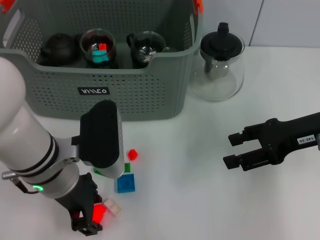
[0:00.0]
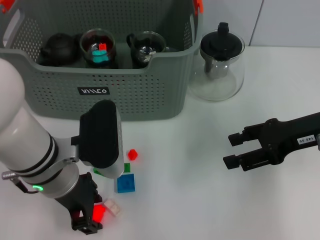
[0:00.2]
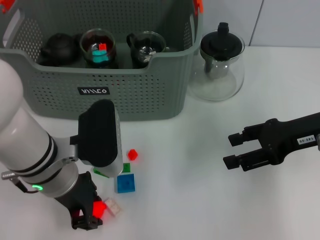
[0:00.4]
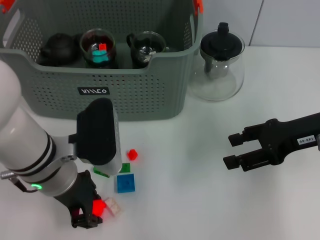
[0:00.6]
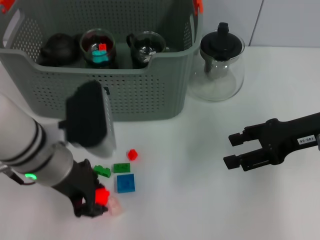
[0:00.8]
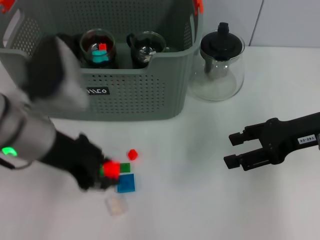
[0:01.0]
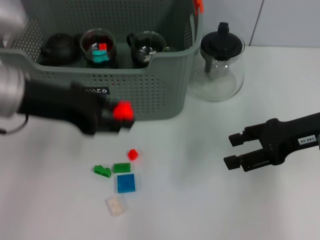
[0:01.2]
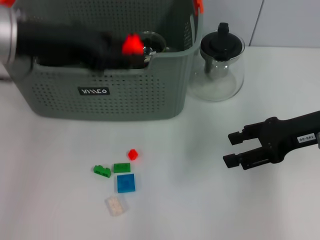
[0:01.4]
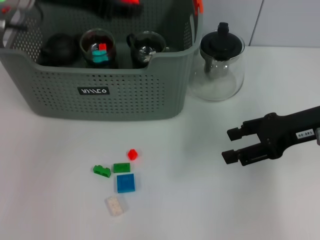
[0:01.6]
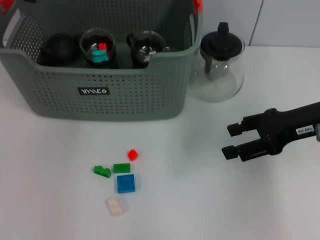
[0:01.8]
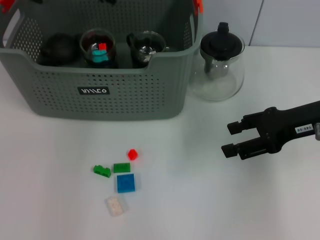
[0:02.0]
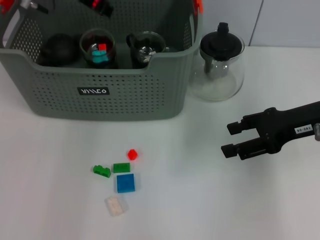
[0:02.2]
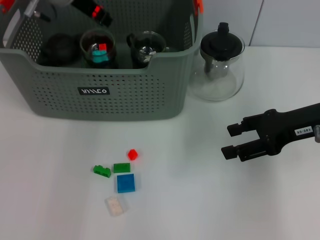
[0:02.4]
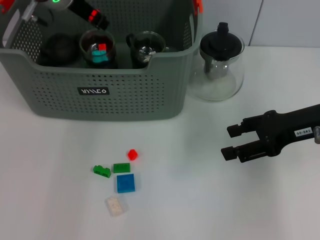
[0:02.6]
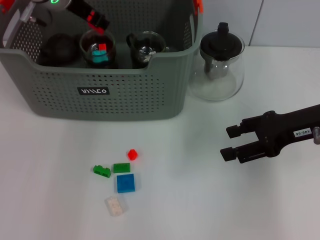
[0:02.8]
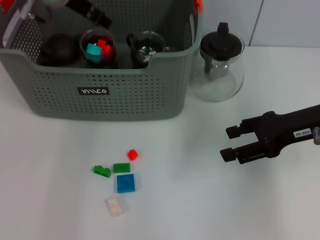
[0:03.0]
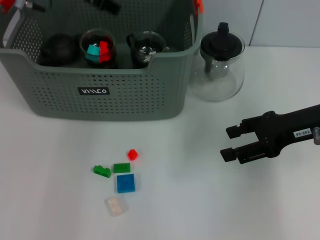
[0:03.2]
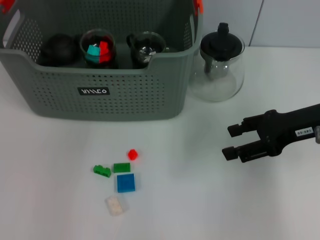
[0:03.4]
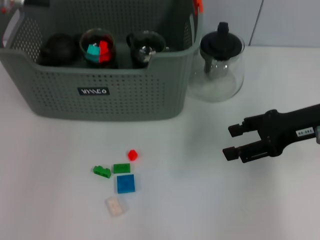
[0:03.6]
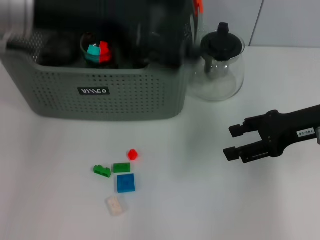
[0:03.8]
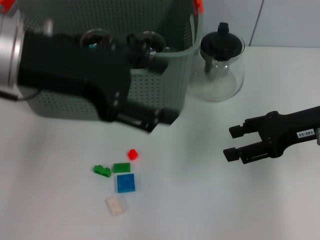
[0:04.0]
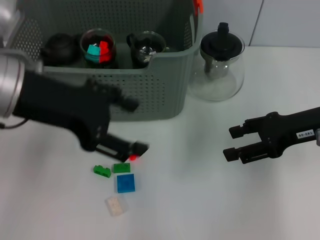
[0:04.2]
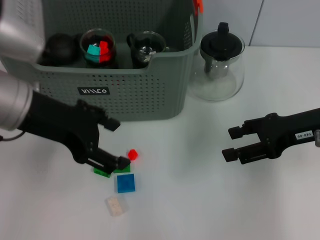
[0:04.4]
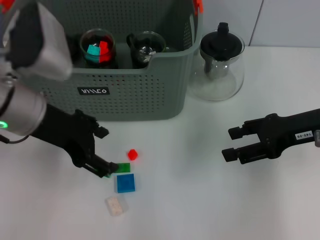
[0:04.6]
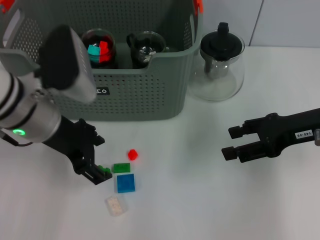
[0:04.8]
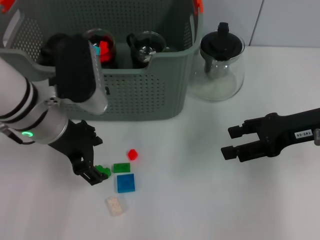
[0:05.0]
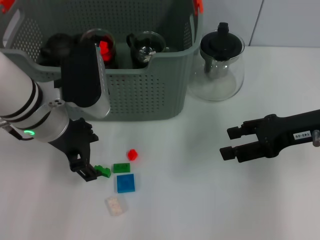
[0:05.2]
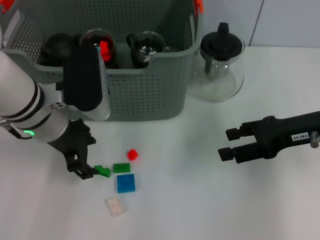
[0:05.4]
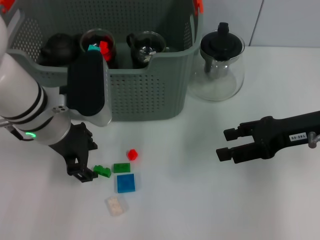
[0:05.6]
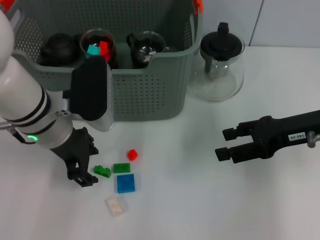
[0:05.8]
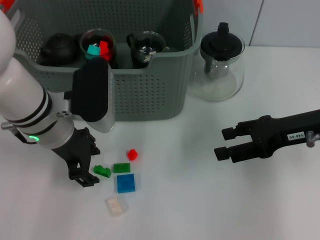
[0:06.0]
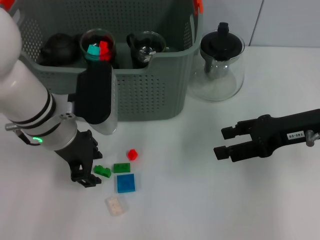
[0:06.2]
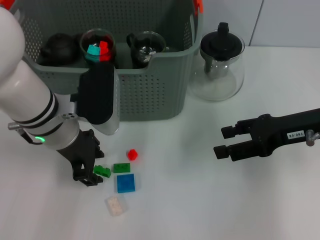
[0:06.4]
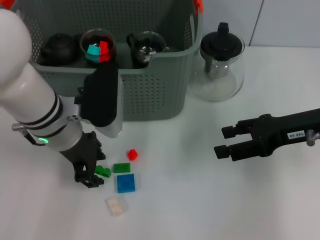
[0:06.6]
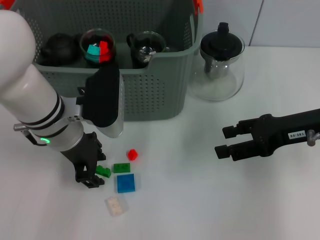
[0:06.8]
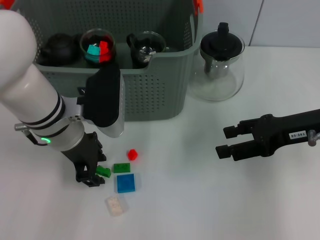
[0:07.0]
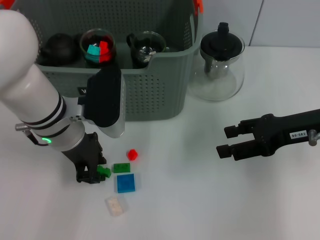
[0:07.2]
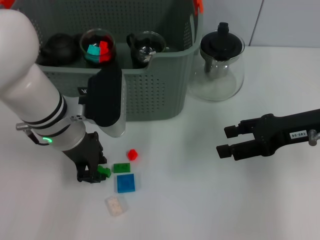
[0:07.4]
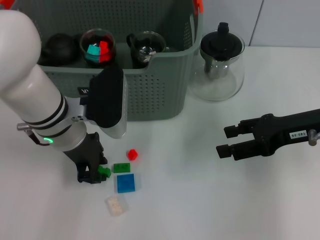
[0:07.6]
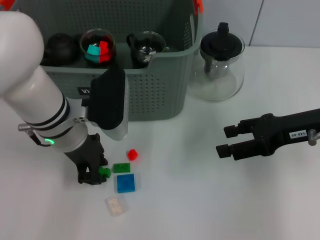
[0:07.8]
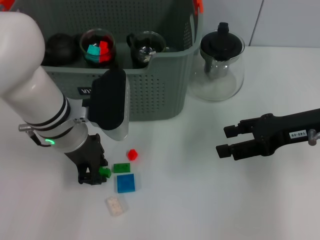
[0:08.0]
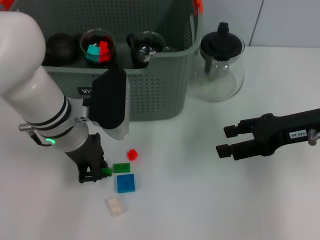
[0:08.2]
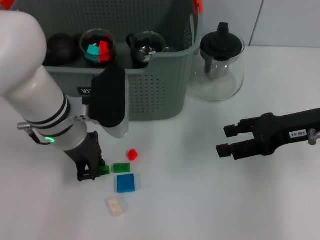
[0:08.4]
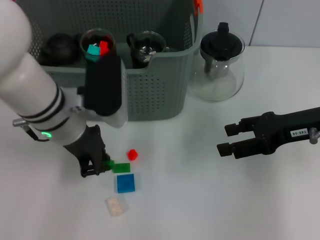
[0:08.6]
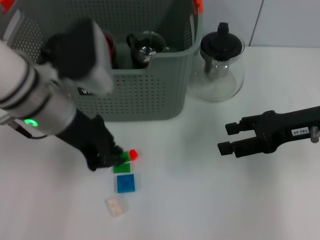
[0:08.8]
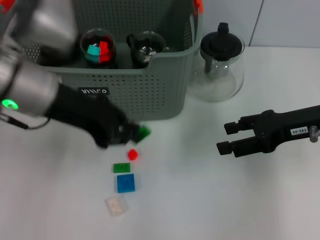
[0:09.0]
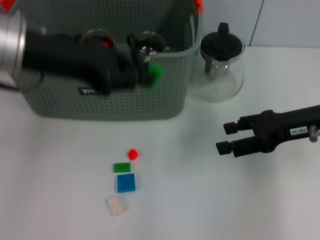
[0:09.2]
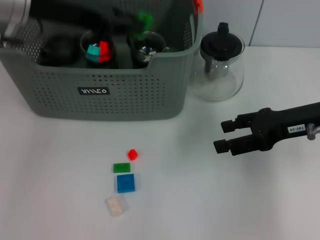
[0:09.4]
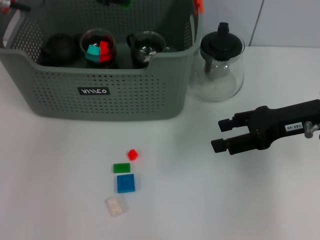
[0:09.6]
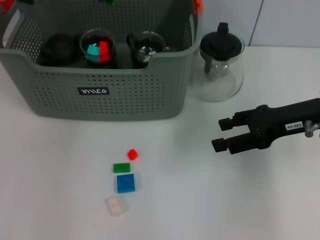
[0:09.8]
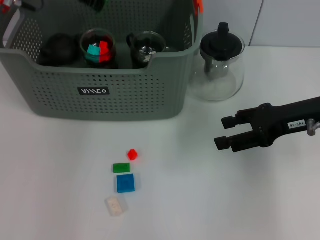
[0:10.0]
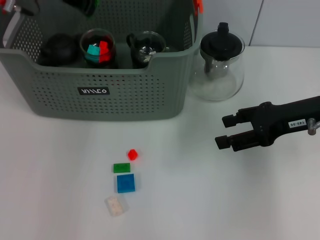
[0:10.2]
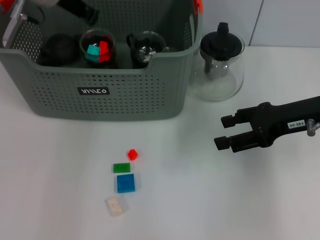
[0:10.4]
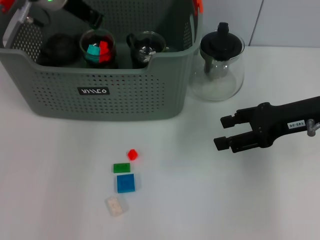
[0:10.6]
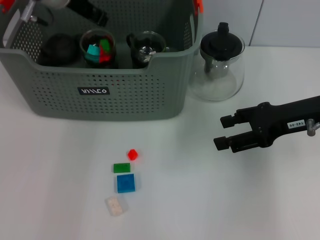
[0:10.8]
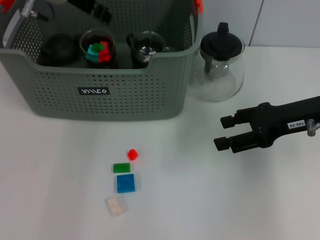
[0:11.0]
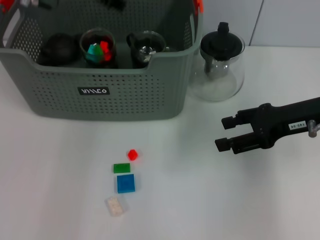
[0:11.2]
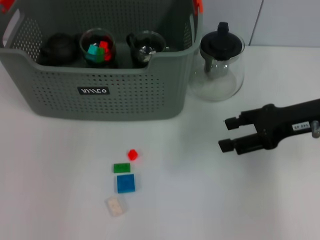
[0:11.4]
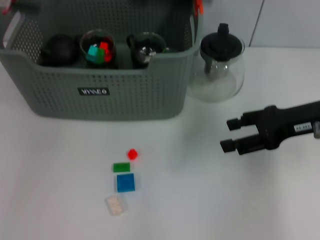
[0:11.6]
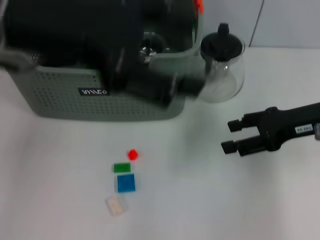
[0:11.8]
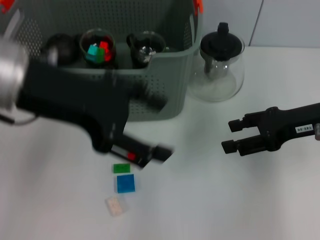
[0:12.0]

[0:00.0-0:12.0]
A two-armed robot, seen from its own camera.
Task of the whole recording: pick up the teacup on the table and place it into the storage bin, pick up the block on the table and place it into the storage bin.
Step, 0:00.8 to 0:03.6: Place the orange block in the storage box with left gripper.
Step, 0:03.8 to 0:08.2: Grasp the green block with left gripper.
Step, 0:08.4 to 0:10.8: Place the green block in the storage box with left gripper.
0:00.0 to 0:01.6: The left gripper travels upward and forward by some 20 cm.
0:01.6 to 0:03.0: The left gripper shifts approximately 10 cm forward and downward.
0:03.0 to 0:04.4: The left gripper heads backward, covering roughly 15 cm.
0:04.4 to 0:06.0: The left gripper travels downward by approximately 10 cm.
0:06.0 to 0:07.6: The left gripper closes its fingers.
0:07.6 to 0:09.0: The left gripper shifts some 10 cm upward.
0:09.0 to 0:10.4: The left gripper moves forward, approximately 15 cm.
0:10.4 to 0:12.0: The left gripper shifts some 20 cm backward, and opens up.

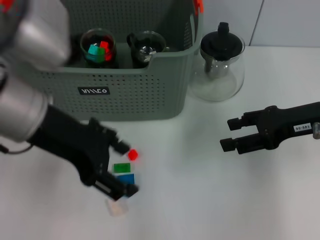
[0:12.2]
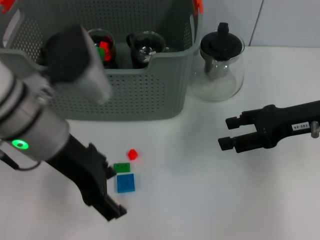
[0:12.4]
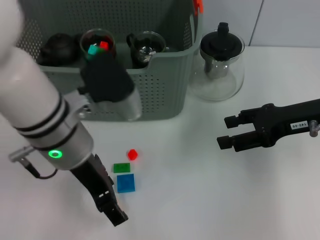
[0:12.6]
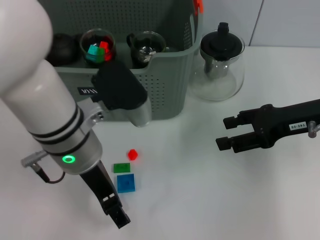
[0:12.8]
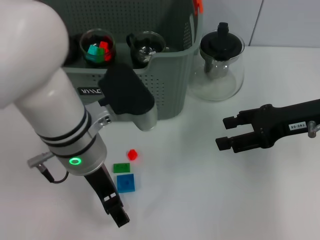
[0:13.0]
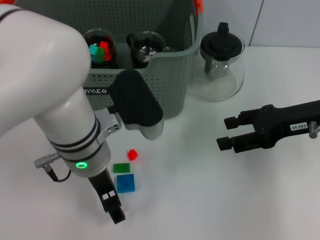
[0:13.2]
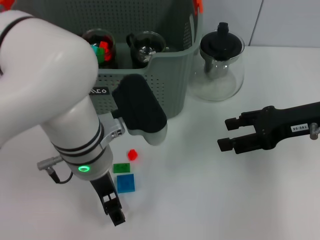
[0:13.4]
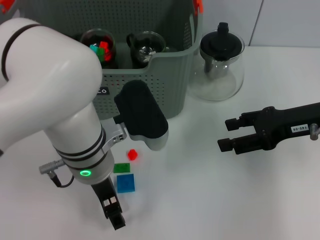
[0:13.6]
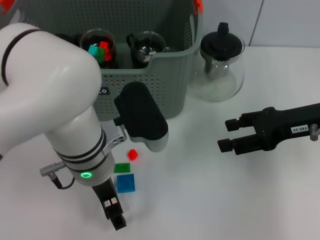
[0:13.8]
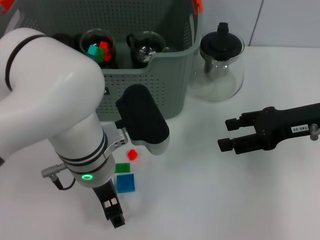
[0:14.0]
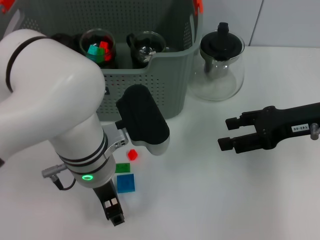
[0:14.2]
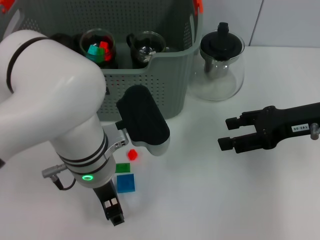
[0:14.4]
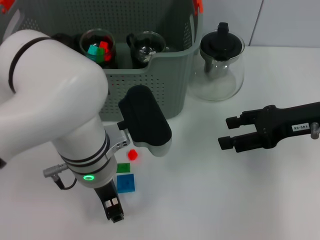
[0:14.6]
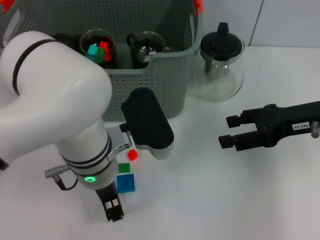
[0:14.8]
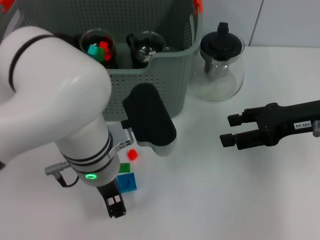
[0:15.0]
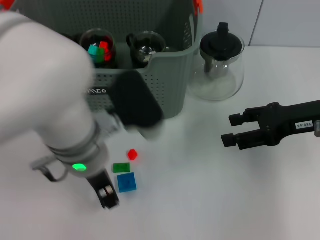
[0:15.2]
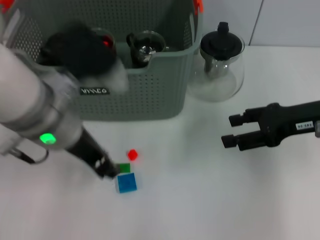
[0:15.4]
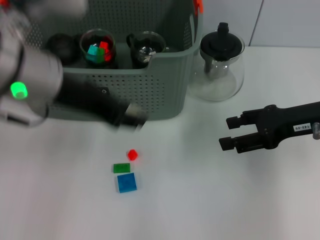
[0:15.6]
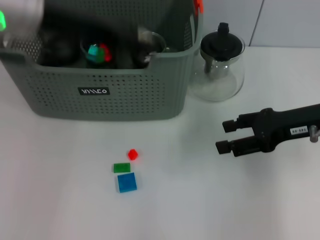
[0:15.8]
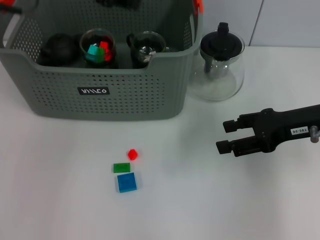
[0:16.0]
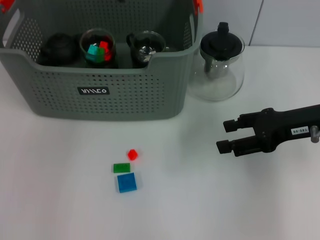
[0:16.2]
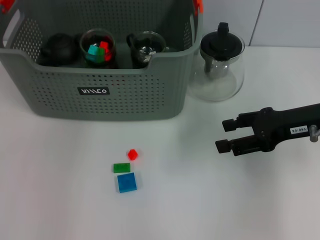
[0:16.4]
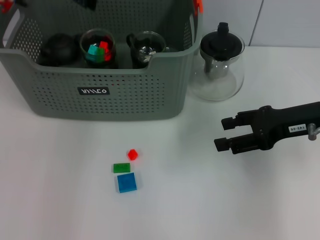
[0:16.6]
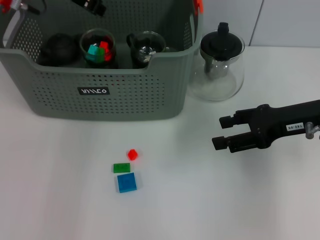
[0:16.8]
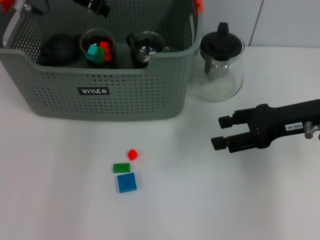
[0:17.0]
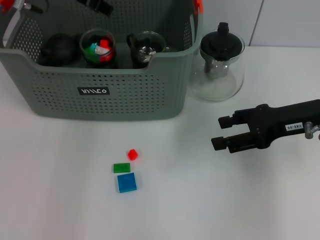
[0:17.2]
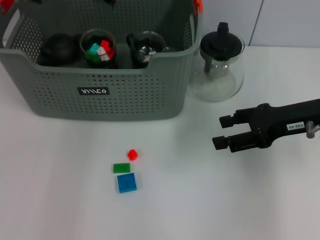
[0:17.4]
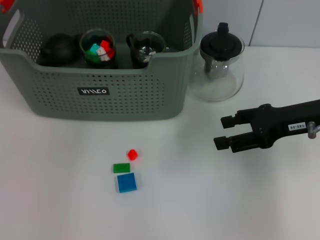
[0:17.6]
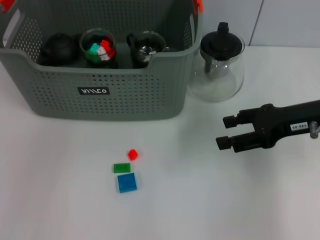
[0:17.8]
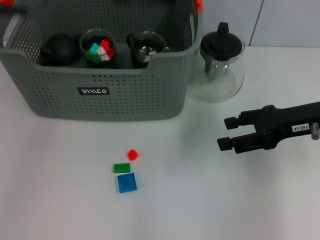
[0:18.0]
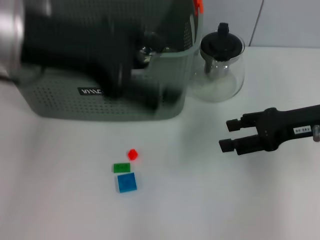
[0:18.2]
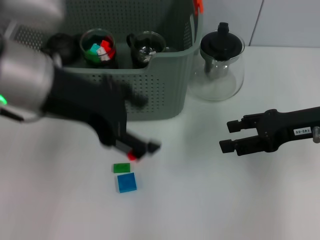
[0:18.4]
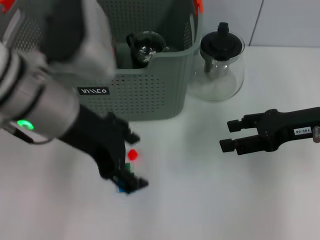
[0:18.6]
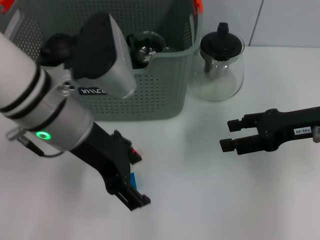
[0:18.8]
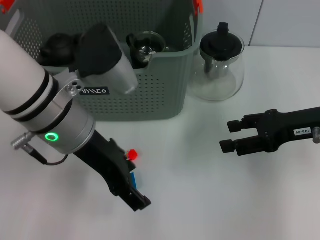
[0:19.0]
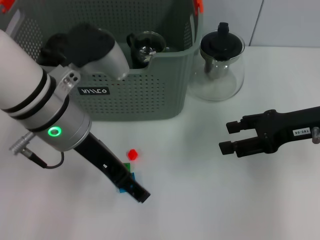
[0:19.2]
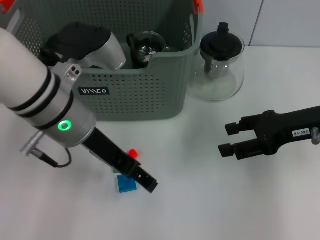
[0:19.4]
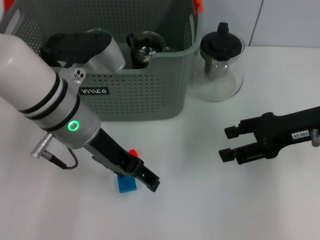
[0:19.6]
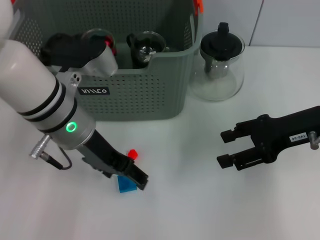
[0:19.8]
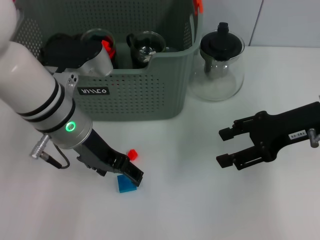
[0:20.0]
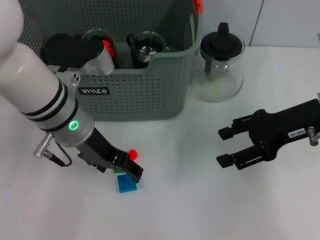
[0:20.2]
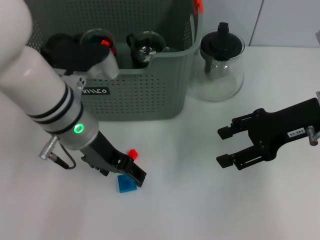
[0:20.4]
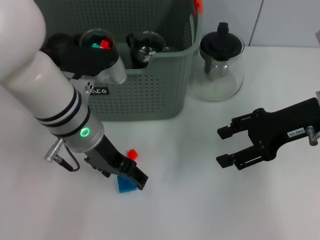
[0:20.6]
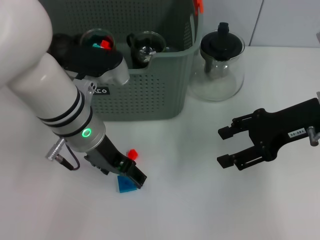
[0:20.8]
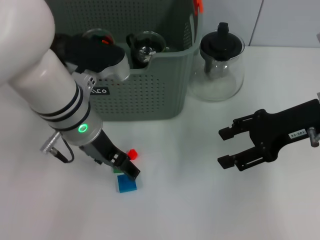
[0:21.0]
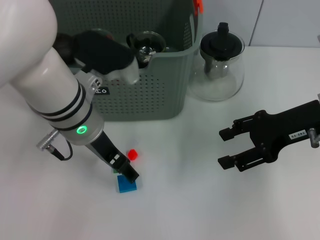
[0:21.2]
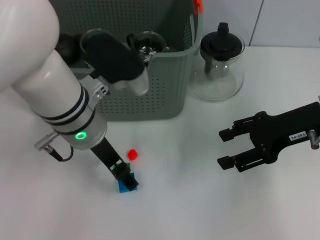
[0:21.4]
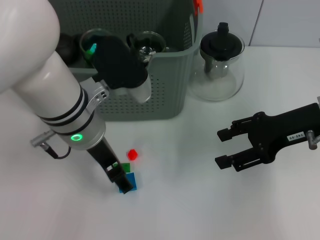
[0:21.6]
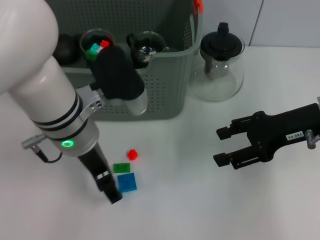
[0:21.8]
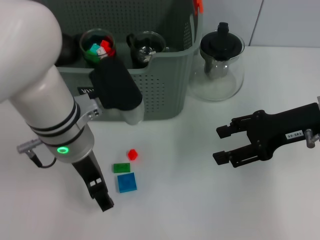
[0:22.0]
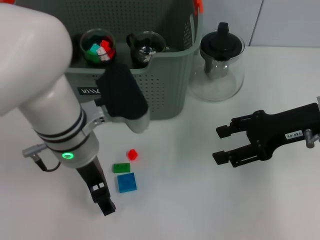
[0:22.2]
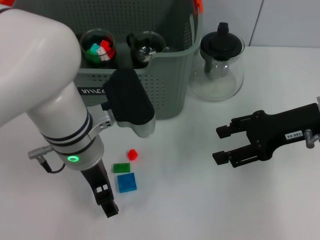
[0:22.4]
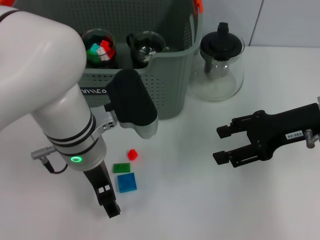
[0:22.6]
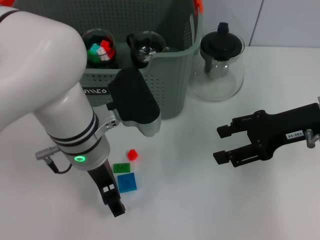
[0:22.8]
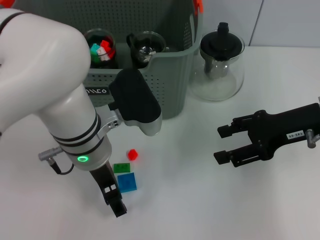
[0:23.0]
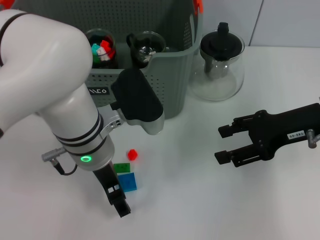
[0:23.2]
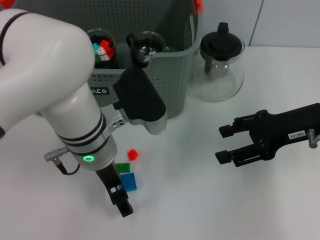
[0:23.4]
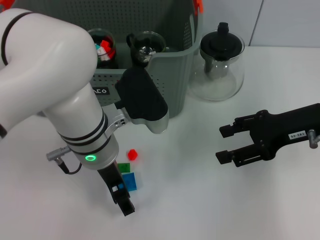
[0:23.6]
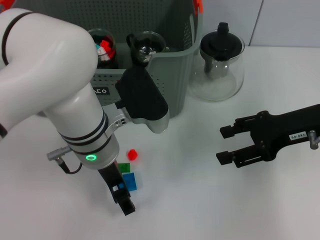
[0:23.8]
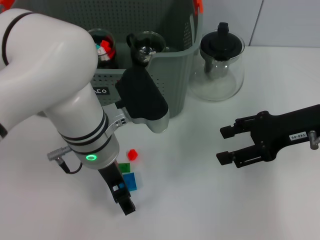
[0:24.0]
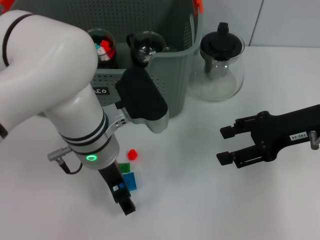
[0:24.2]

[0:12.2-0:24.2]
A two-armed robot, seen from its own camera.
Task of the whole recording: pick up the teacup on the table and place it into the storage bin, pick up the block on the table and place it into the storage bin.
Step, 0:12.2 to 0:15.0: Grasp the white block with left gripper.
Step, 0:15.2 to 0:17.4: Place the white block in the storage box with left gripper.
0:12.2 to 0:13.8: The left gripper heads downward and to the right, covering roughly 15 cm.
0:13.8 to 0:15.2: The left gripper closes up.
0:15.2 to 0:16.6: The left gripper is displaced forward, upward and to the left by roughly 20 cm.
0:16.6 to 0:18.2: The left gripper goes roughly 15 cm backward, and opens.
0:18.2 to 0:19.8: The left gripper moves downward, some 15 cm.
0:19.8 to 0:21.2: The grippers move only a little.
0:22.6 to 0:24.2: There are only small adjustments of the grippers.
